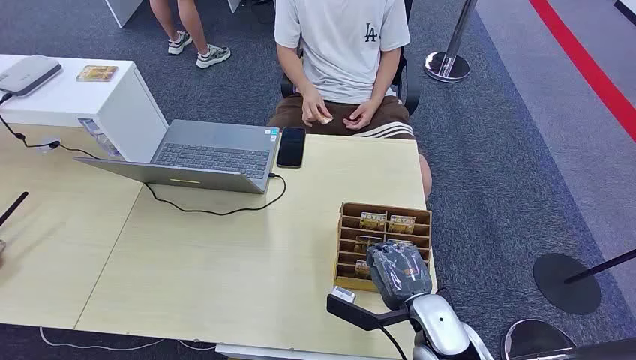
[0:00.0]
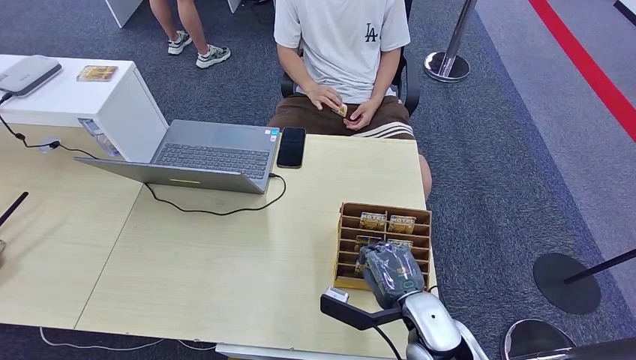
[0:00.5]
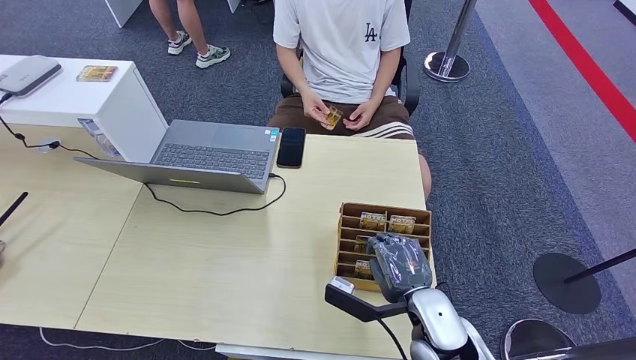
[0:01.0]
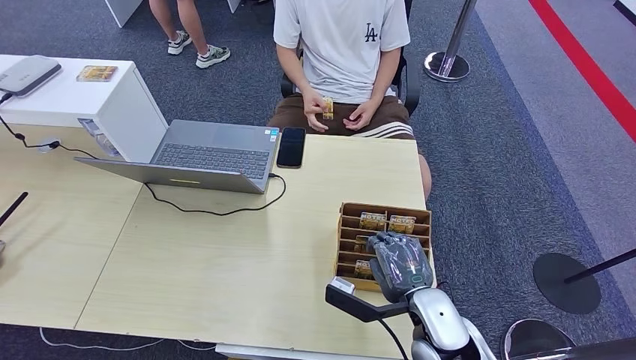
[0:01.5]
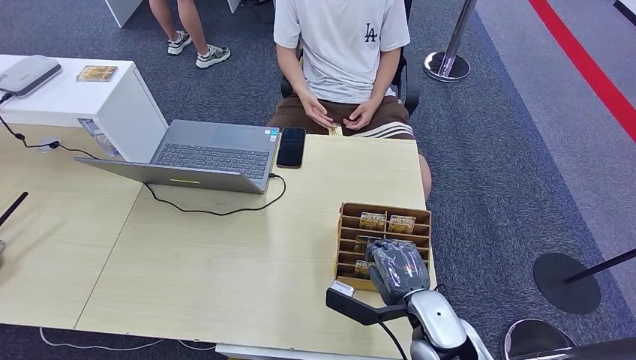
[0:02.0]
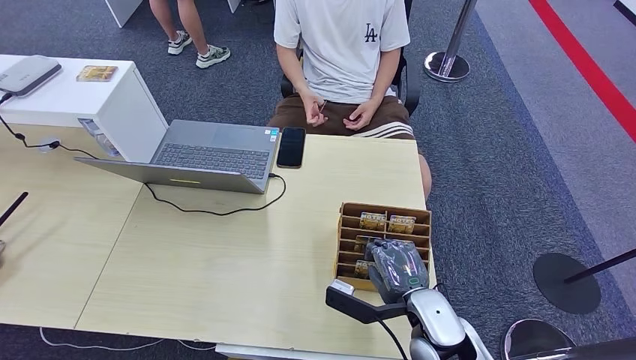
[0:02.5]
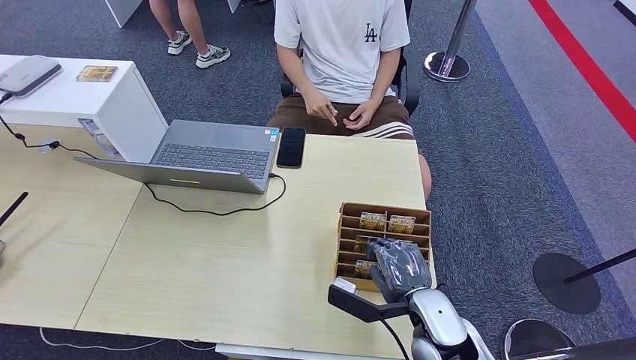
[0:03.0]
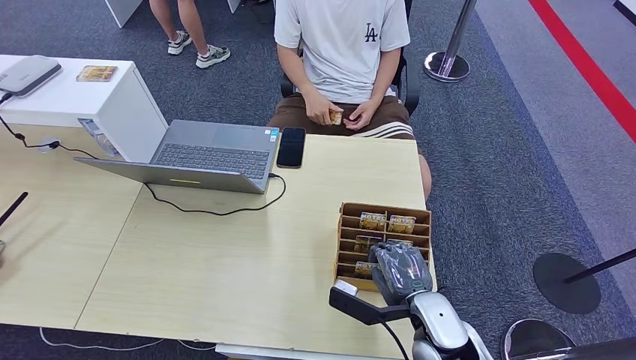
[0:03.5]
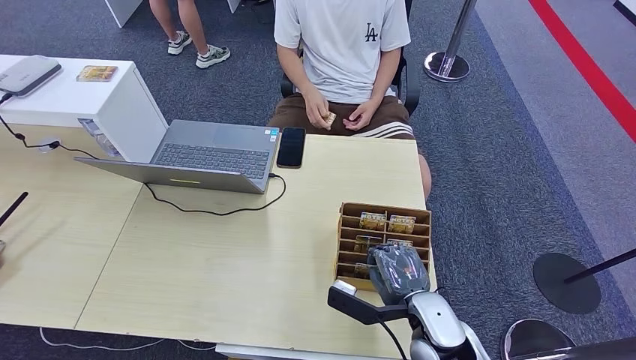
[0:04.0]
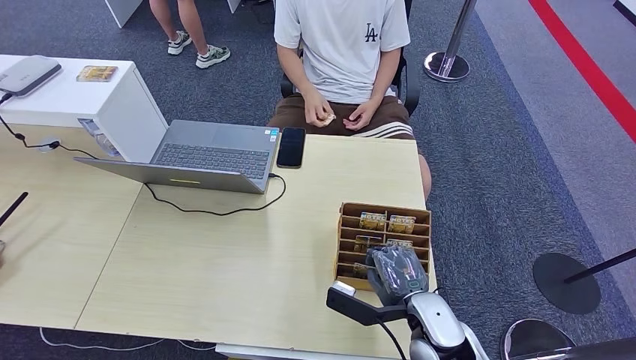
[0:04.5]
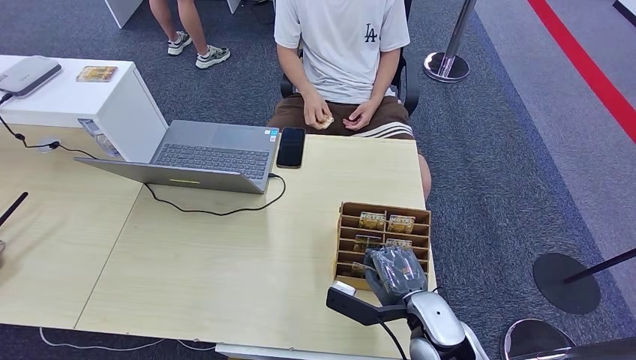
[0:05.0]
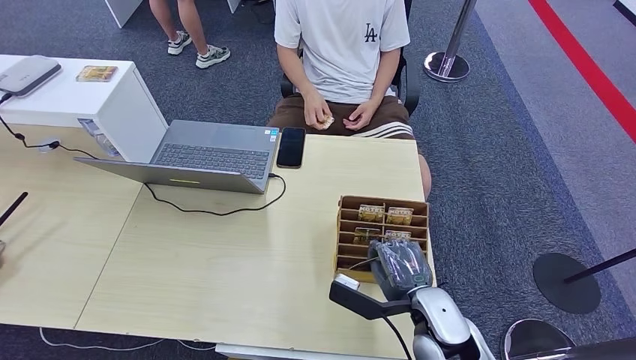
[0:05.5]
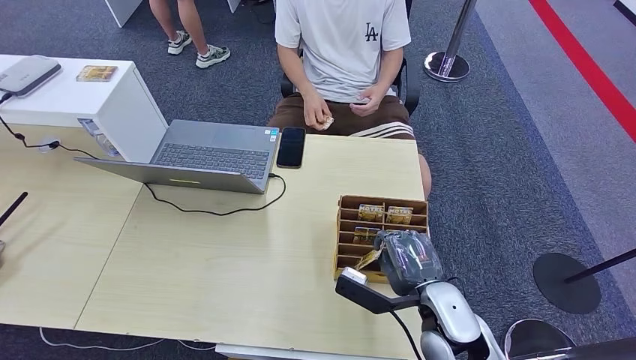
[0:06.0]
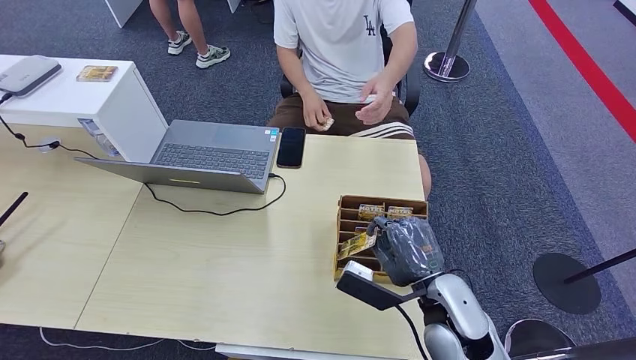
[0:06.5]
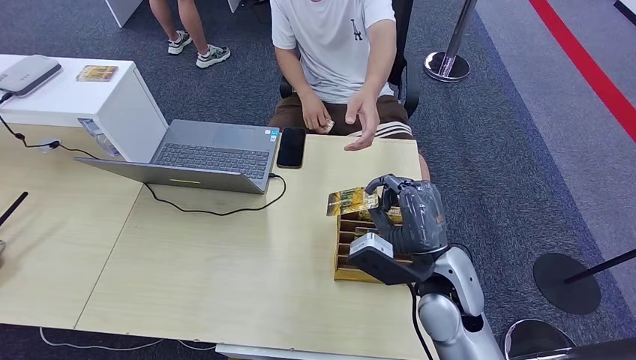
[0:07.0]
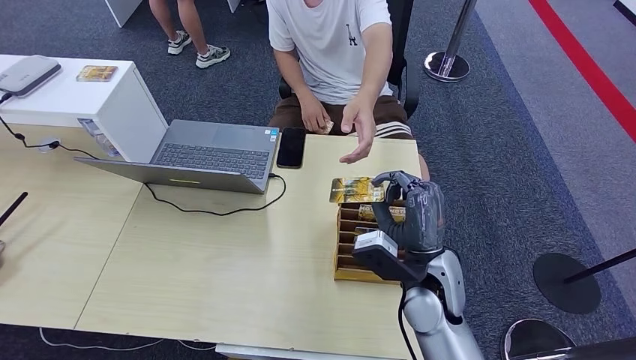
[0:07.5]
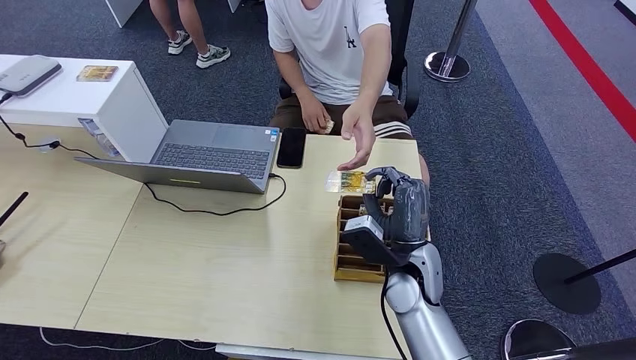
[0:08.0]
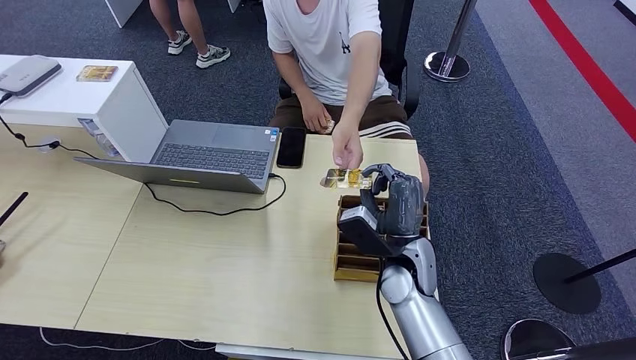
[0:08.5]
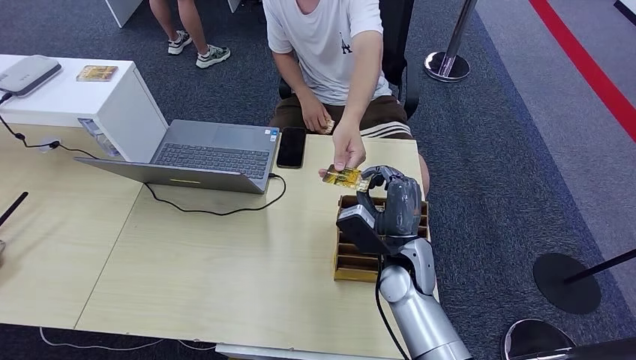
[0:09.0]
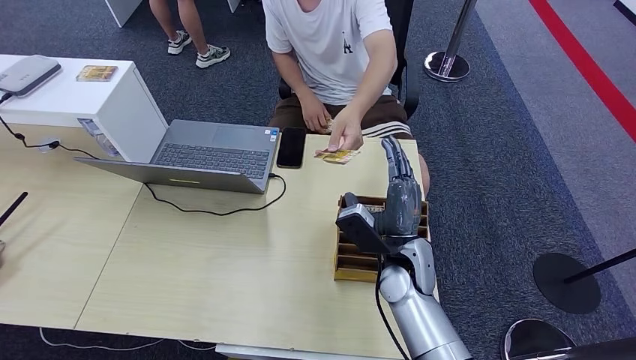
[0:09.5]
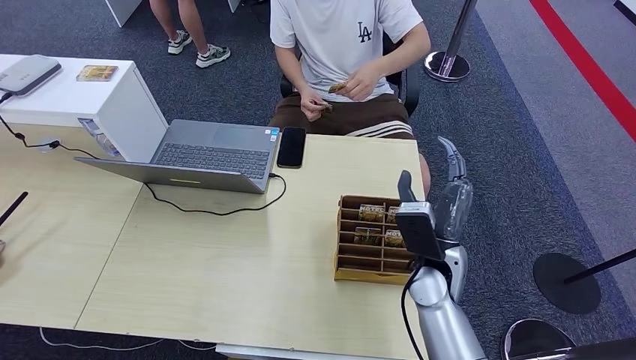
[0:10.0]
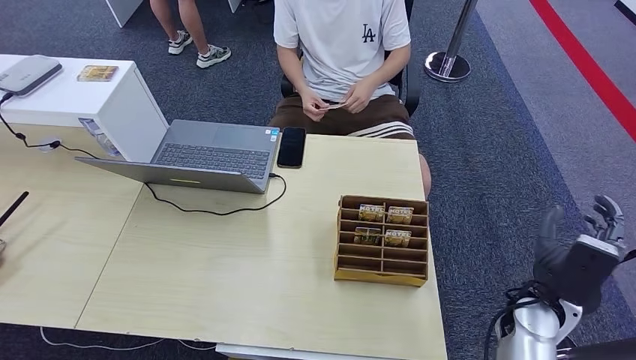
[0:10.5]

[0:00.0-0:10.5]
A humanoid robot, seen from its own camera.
Step, 0:00.0 to 0:06.0: Pick up the room card from the card holder.
Step, 0:06.5 to 0:10.5: Hand the room card to the target.
0:02.0 to 0:04.0: Both hands stay put.
0:04.0 to 0:06.5: The right hand ends up some 5 cm from where it was.
0:06.5 to 0:08.5: The right hand travels forward and to the left by some 10 cm.
0:08.5 to 0:10.5: The right hand shifts about 20 cm to the right.

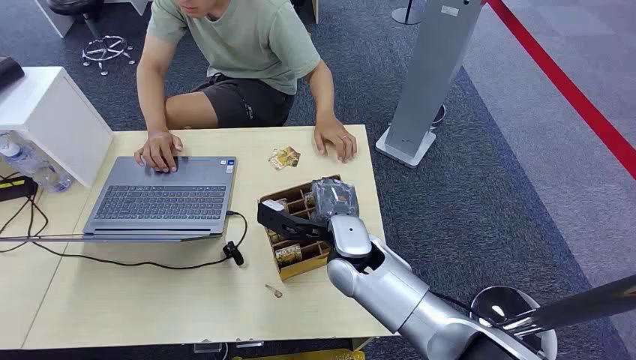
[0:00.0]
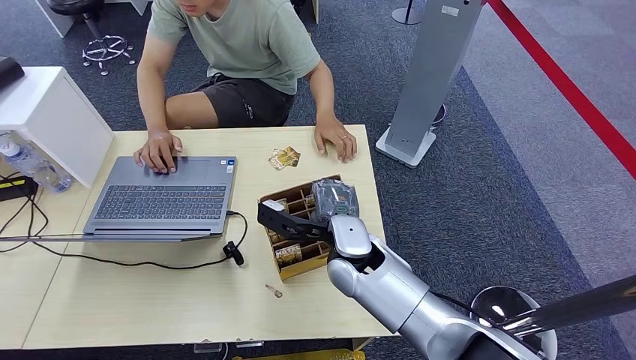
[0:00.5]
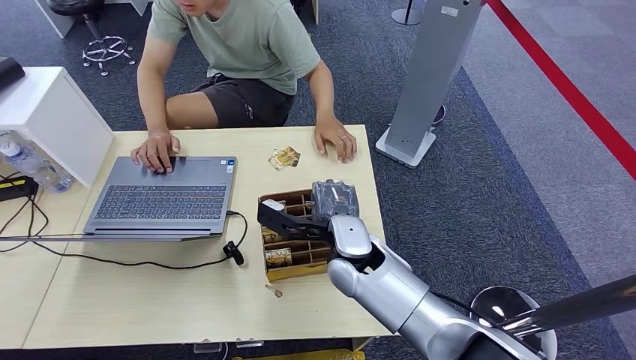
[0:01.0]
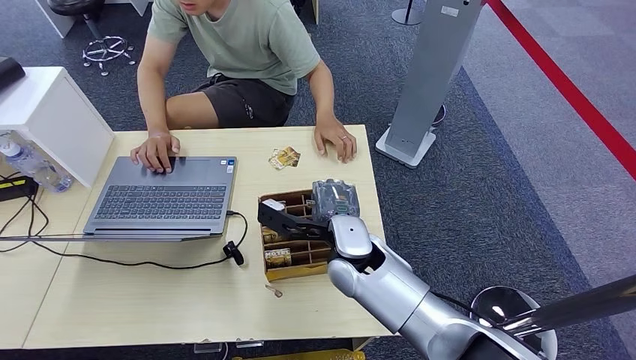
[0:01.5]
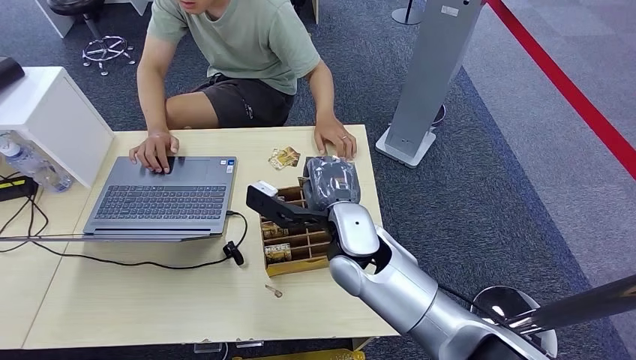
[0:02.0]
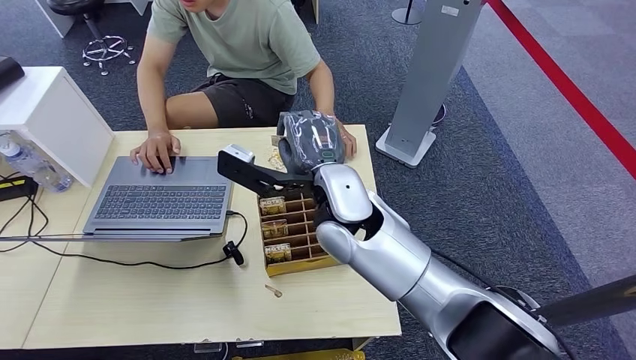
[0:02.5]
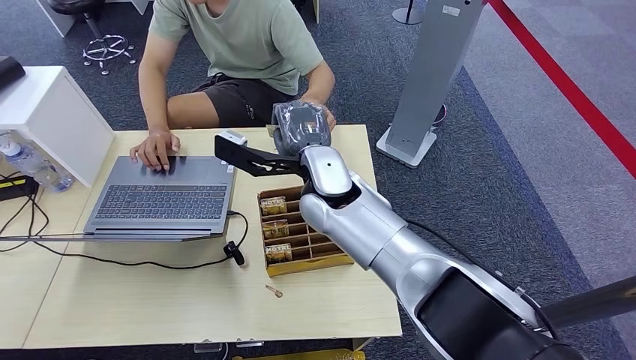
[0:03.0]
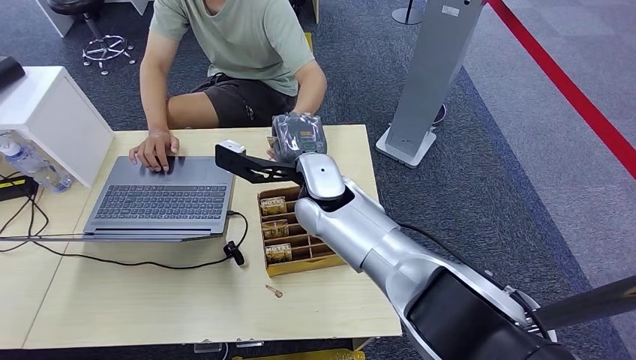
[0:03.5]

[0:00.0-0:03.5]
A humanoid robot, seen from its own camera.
Step, 0:00.0 to 0:02.0: Pick up the room card from the card holder.
Step, 0:02.5 to 0:03.5: Hand the room card to the target.
0:02.0 to 0:03.5: The right hand goes roughly 5 cm forward.
